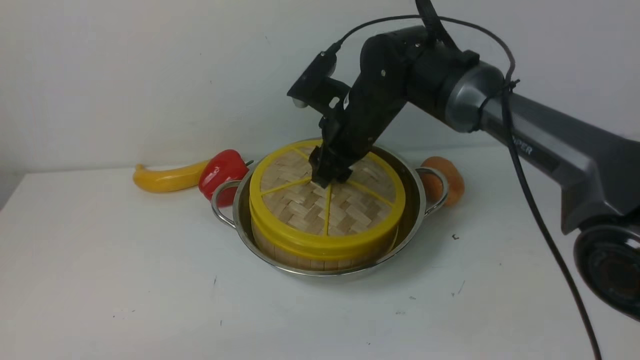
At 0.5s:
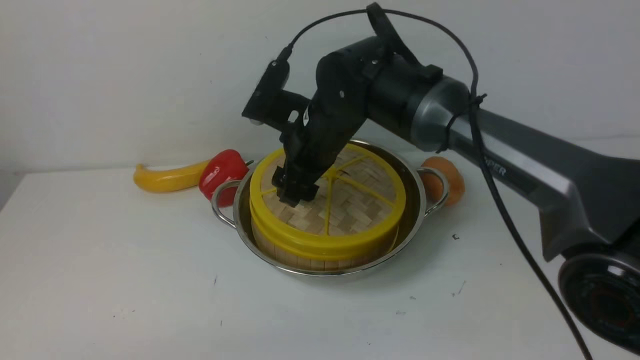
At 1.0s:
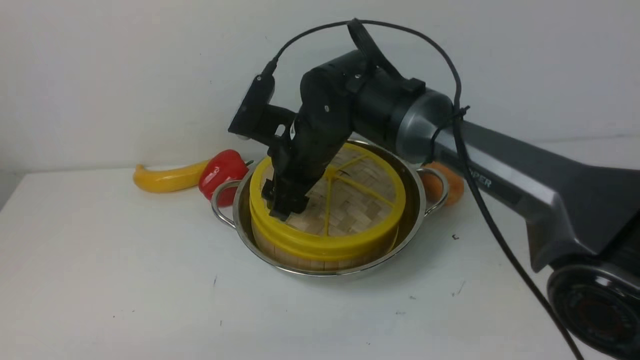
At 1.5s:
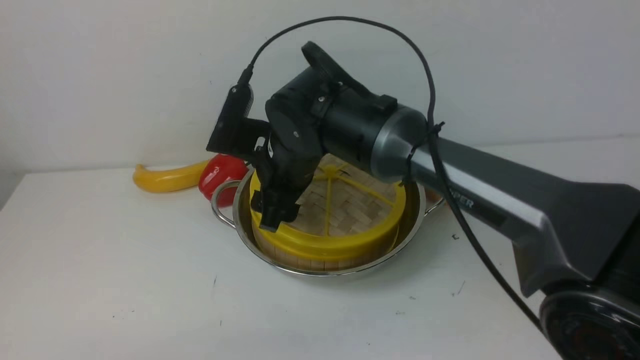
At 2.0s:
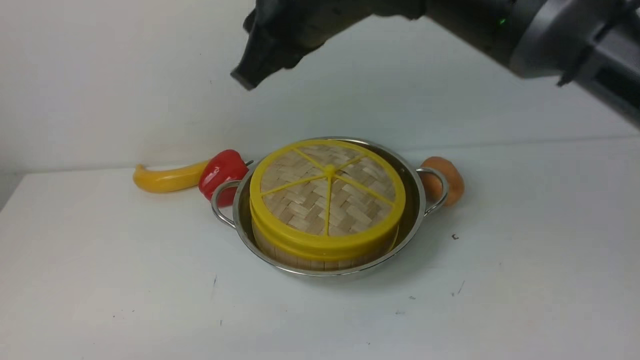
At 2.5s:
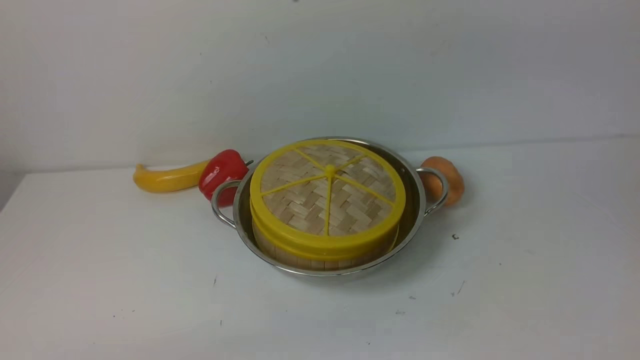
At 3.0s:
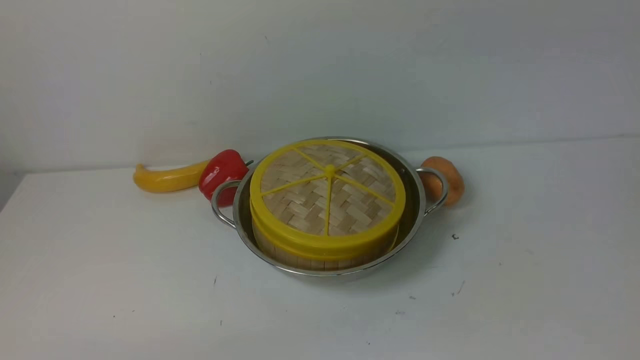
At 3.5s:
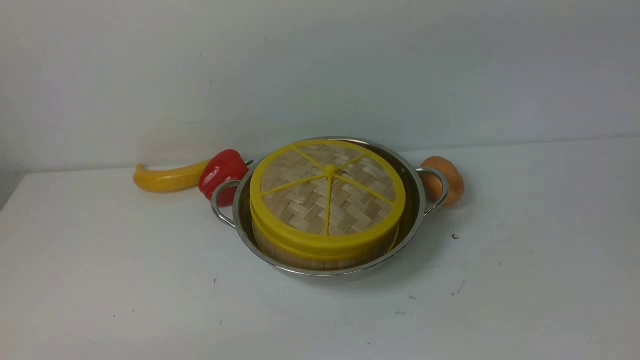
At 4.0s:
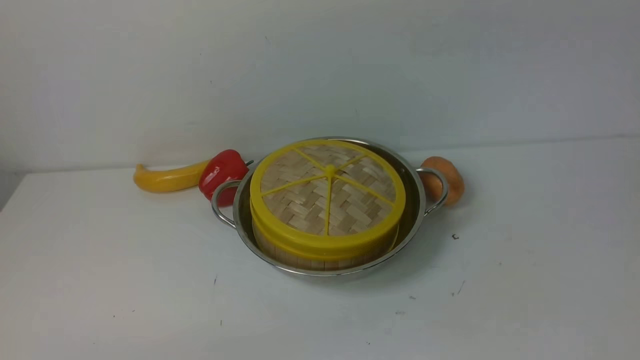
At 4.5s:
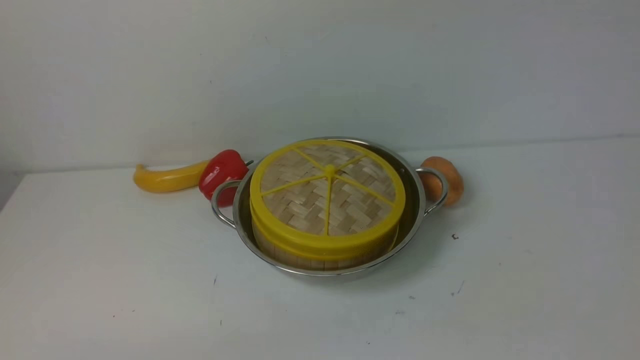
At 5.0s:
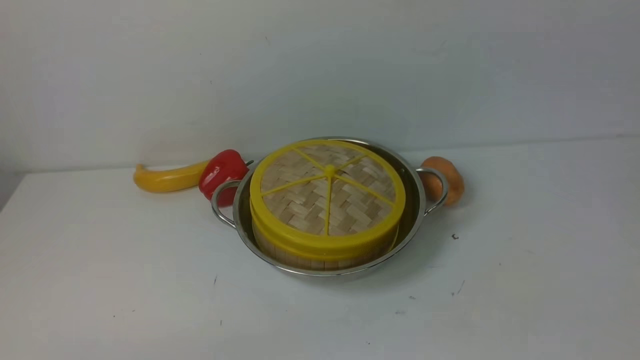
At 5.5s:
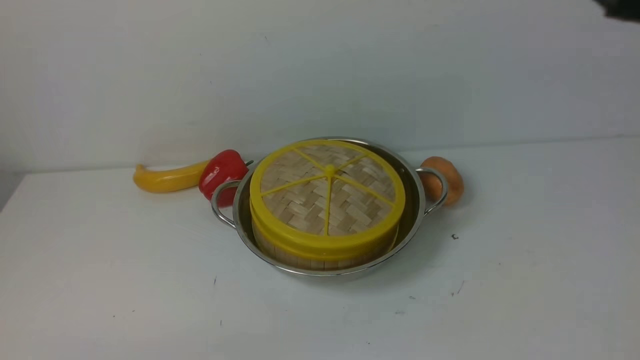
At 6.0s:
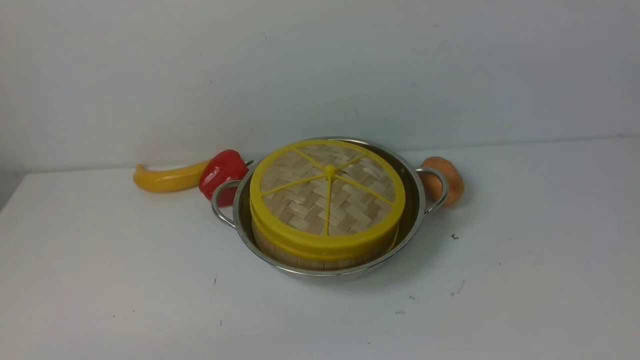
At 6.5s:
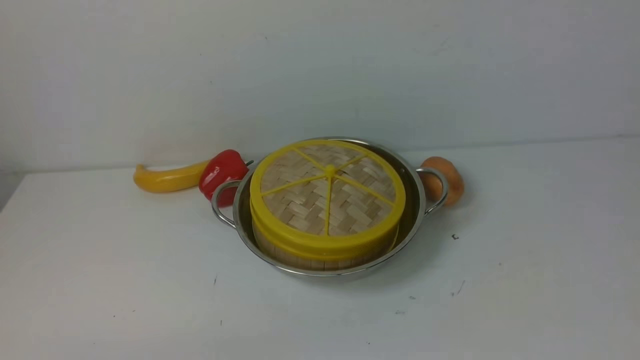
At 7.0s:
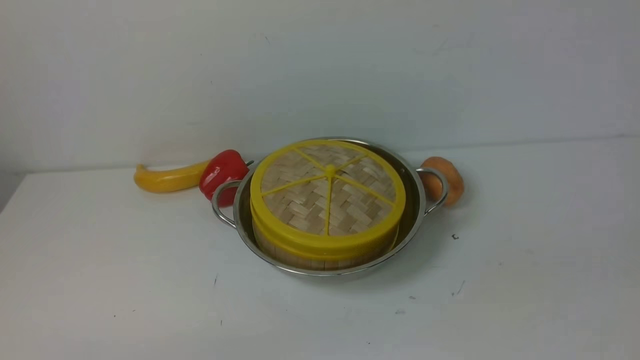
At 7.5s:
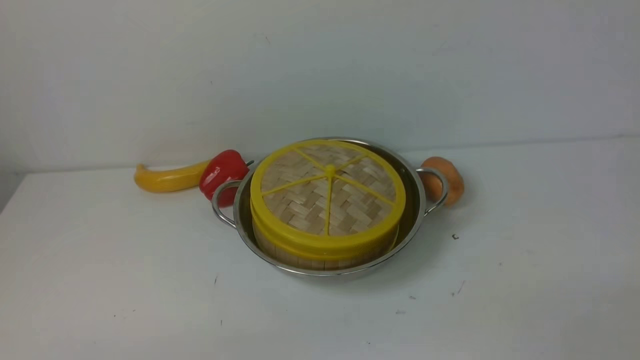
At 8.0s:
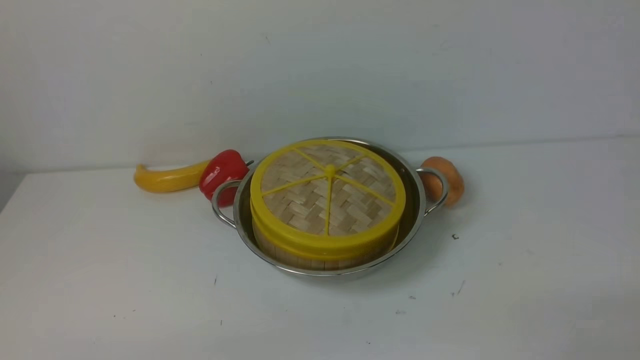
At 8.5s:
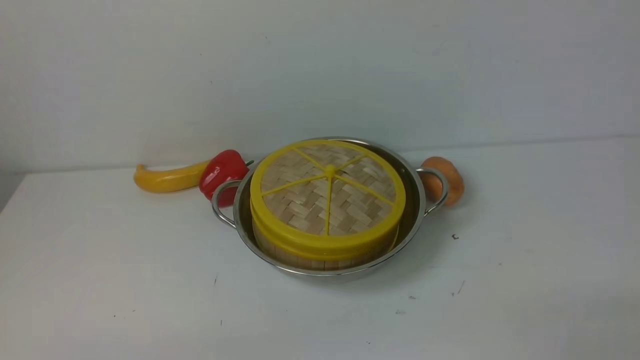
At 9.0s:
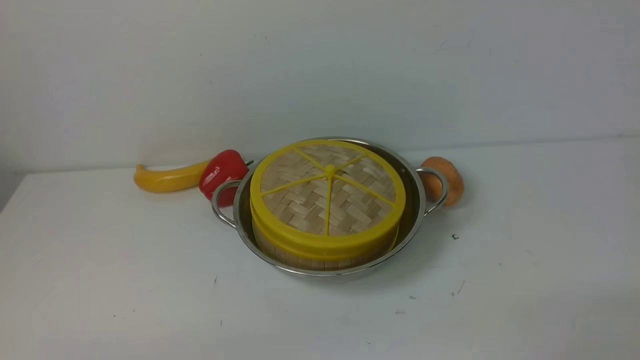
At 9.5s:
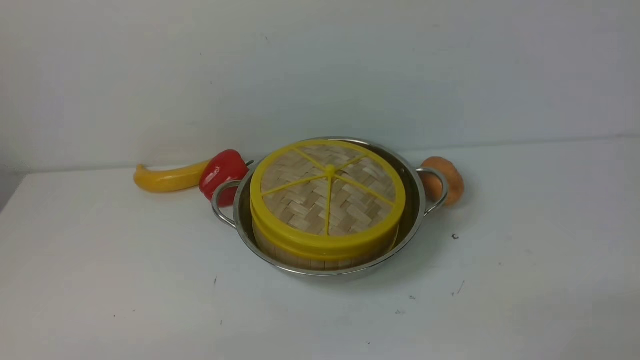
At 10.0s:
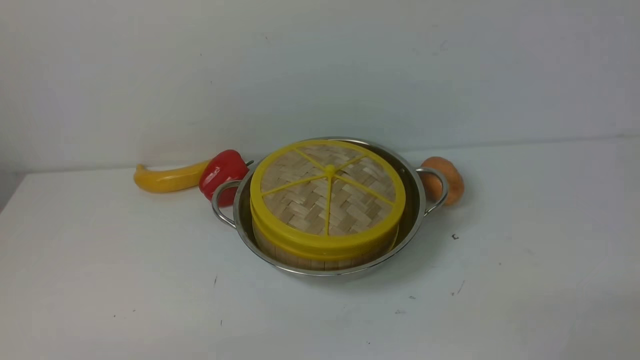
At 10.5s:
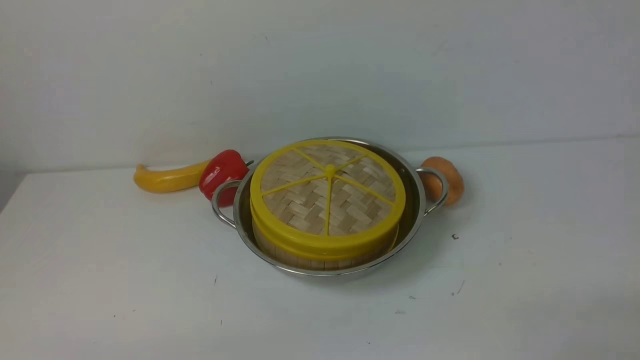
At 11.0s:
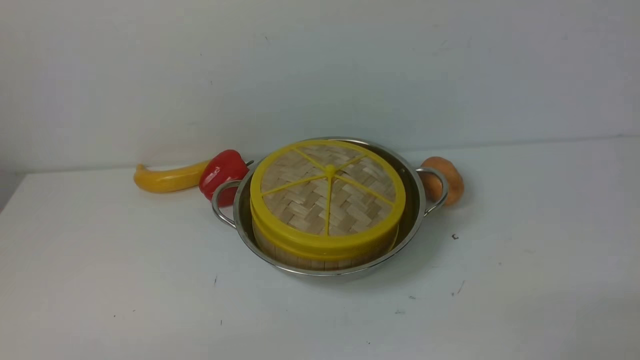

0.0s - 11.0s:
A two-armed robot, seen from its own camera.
Task of the whole recording: place the steamer in the pot on the white table, and put the lid on the steamer.
Step, 0.0s - 2.5s: use the right arm to place the steamer lid on the steamer.
0.0s - 2.0s: The right gripper goes roughly 20 cm upward and backward, and closes.
2.0s - 3.5s: The right gripper heads upward, backward and to the right, covering some 20 cm.
9.0s - 11.0s: Both grippers stay about where they are.
